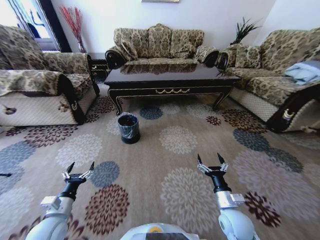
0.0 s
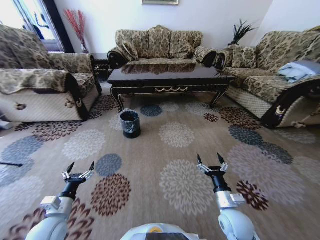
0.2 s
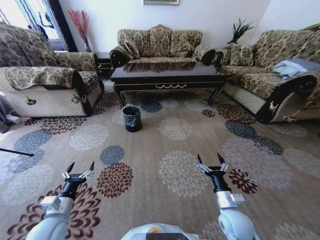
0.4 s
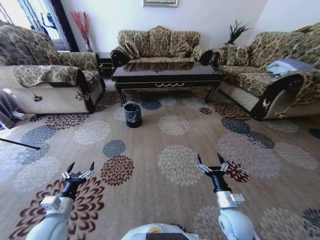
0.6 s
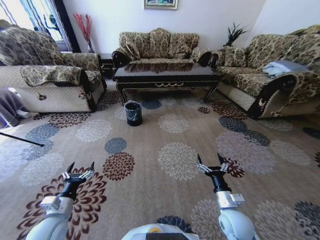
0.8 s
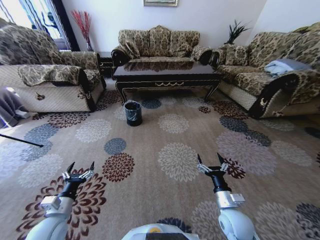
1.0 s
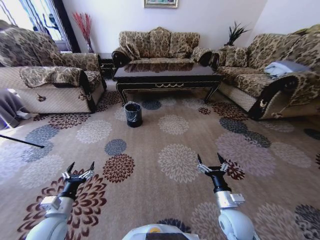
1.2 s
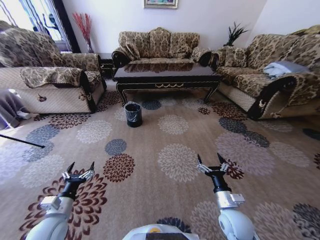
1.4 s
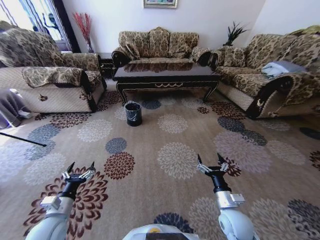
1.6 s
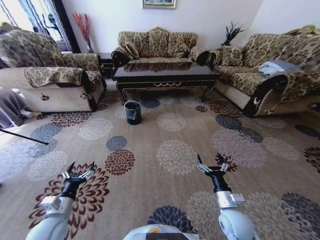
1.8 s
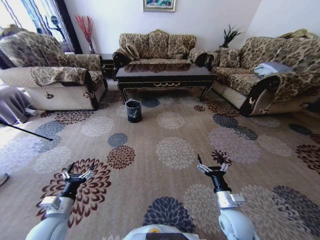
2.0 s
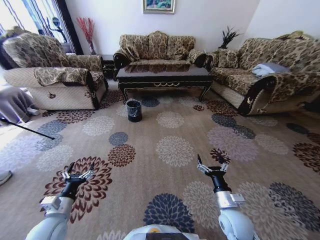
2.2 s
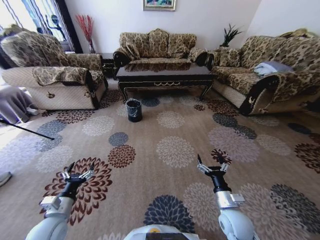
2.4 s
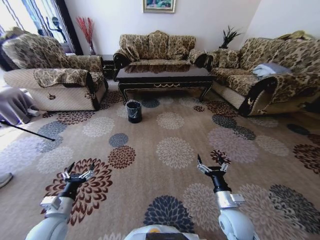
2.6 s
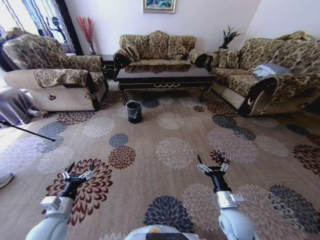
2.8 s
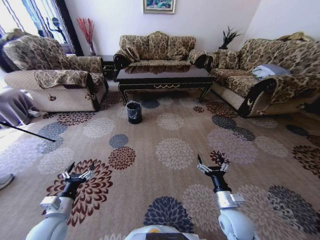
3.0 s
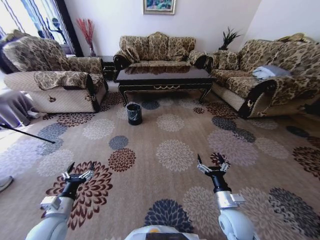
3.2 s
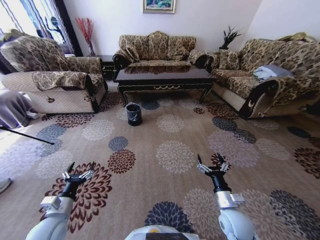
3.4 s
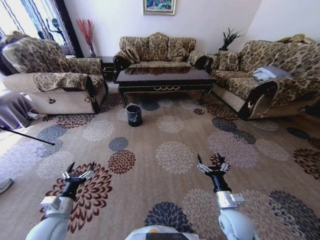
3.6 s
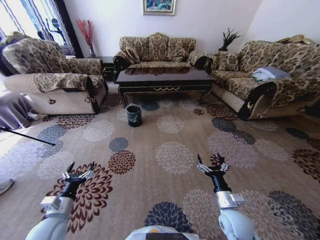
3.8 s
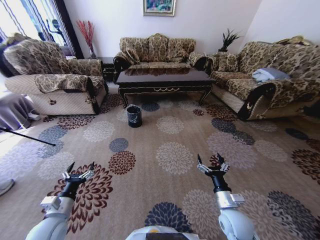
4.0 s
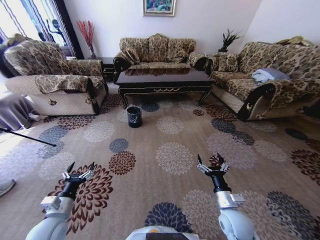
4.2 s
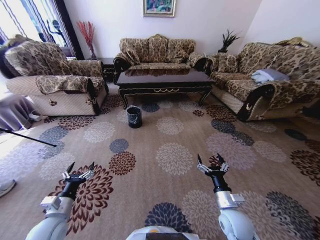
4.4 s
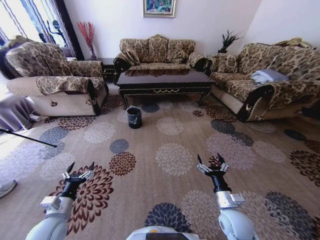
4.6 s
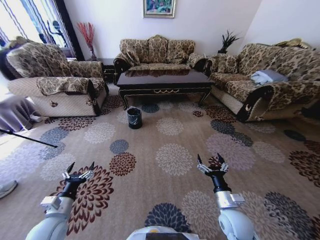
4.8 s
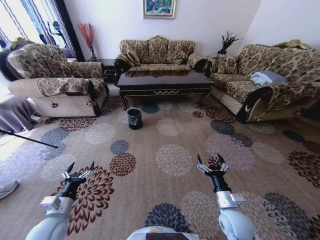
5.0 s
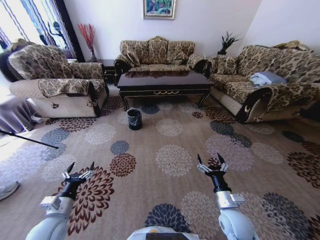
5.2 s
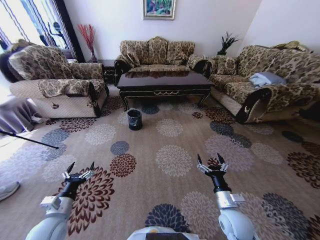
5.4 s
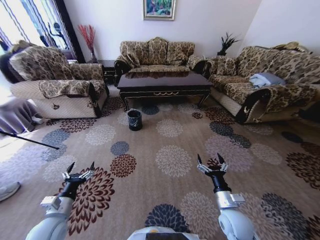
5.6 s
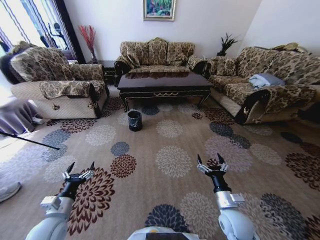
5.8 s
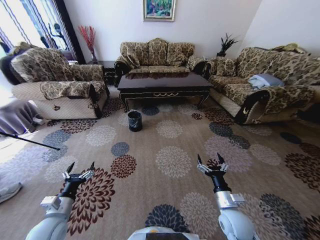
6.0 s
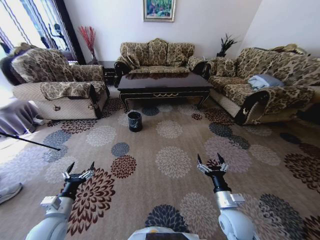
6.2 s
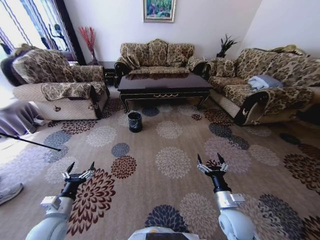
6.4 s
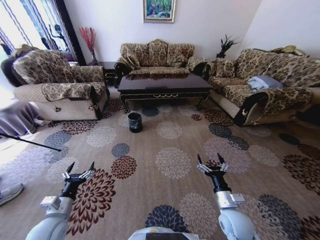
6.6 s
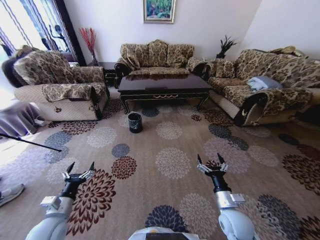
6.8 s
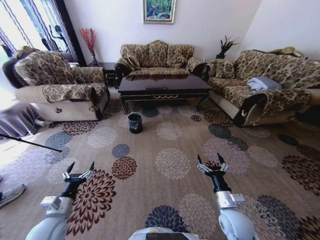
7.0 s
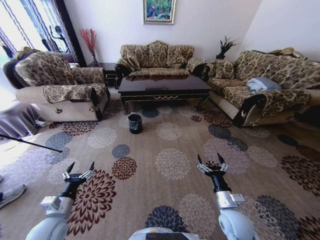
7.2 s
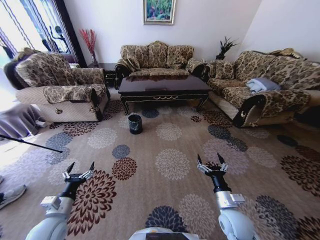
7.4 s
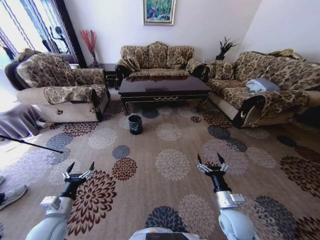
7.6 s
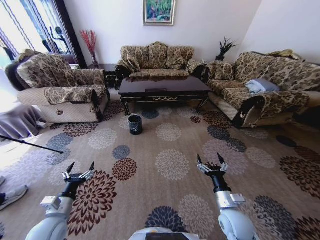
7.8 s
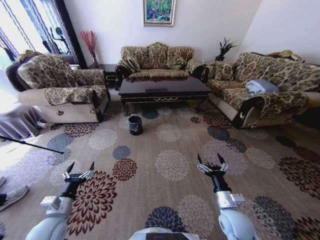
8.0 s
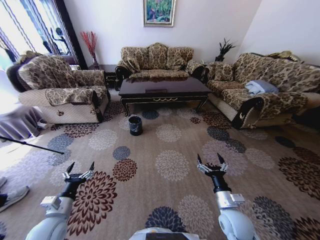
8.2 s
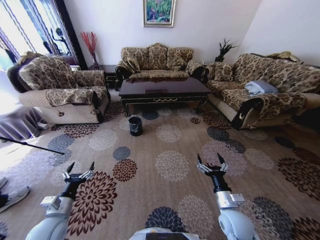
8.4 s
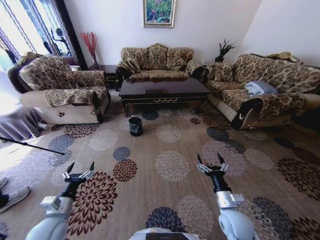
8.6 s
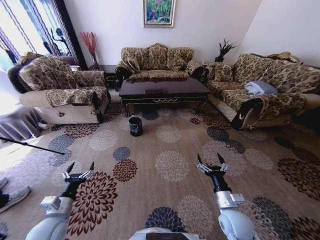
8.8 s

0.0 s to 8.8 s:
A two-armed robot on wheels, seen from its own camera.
Task of the whole recording: Move to the front of the table and pick up the trash from the floor, then place it into the trash bin.
7.4 to 8.8 s: Neither gripper changes place.

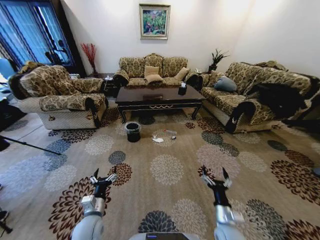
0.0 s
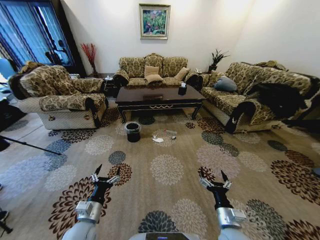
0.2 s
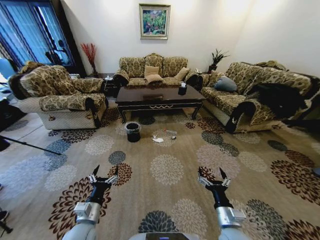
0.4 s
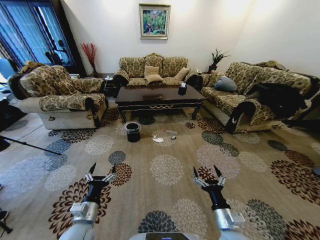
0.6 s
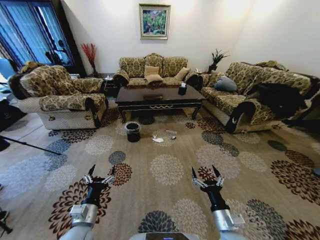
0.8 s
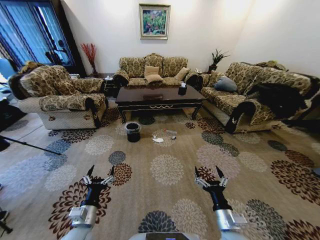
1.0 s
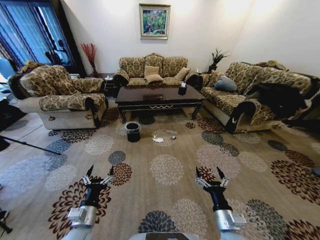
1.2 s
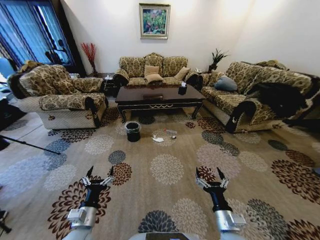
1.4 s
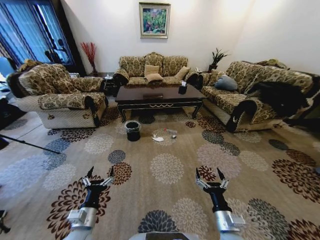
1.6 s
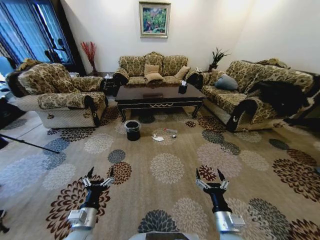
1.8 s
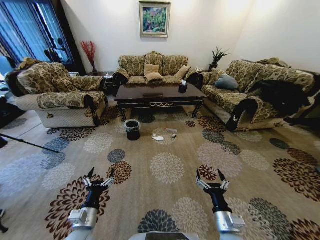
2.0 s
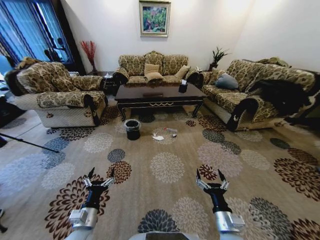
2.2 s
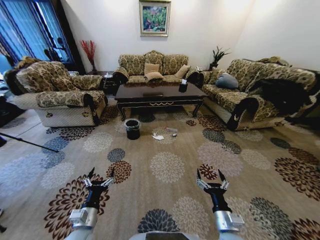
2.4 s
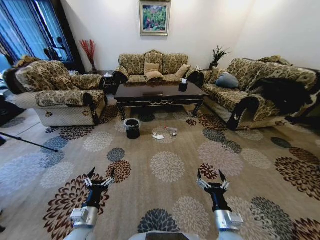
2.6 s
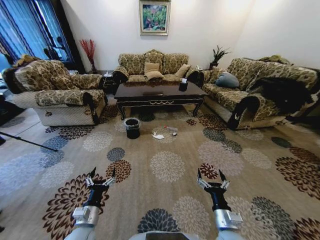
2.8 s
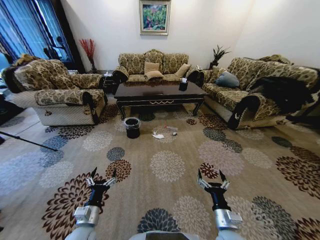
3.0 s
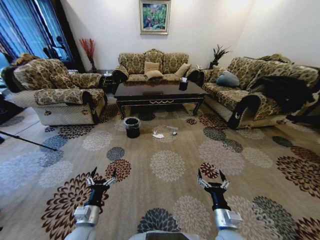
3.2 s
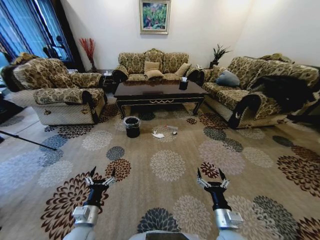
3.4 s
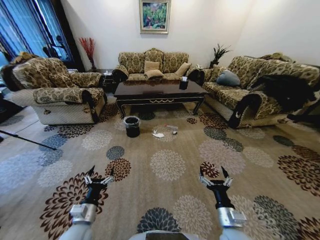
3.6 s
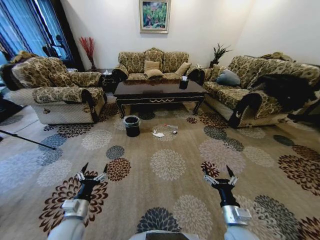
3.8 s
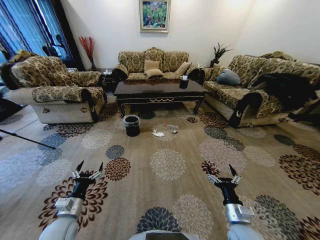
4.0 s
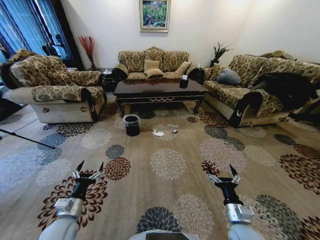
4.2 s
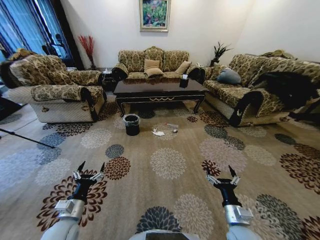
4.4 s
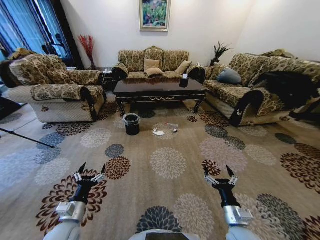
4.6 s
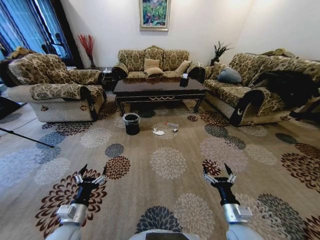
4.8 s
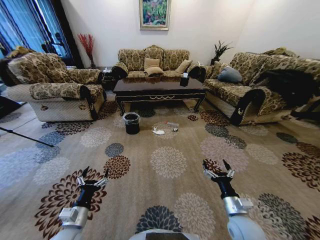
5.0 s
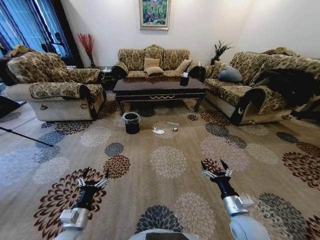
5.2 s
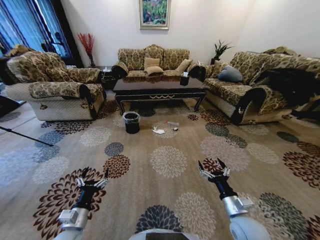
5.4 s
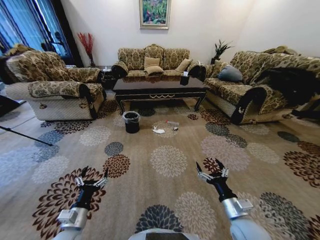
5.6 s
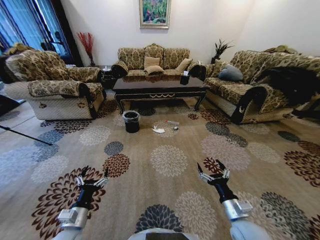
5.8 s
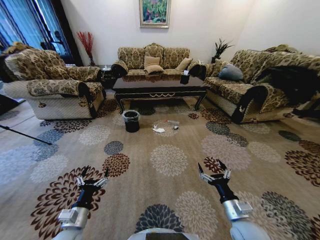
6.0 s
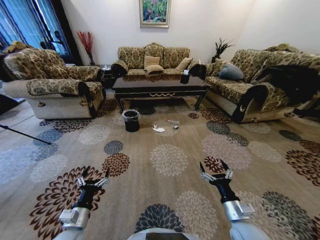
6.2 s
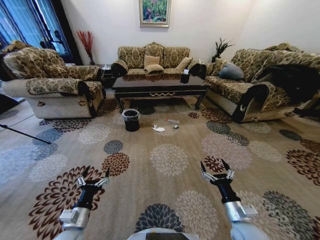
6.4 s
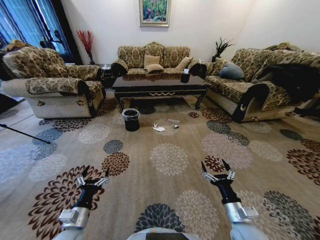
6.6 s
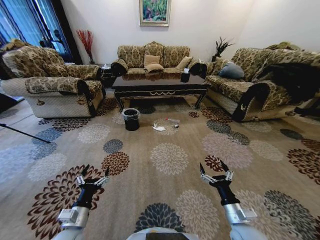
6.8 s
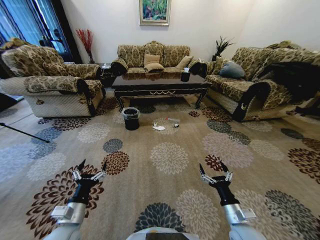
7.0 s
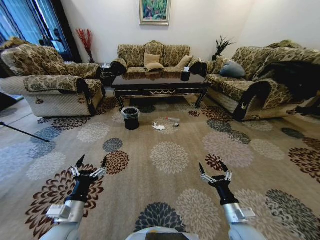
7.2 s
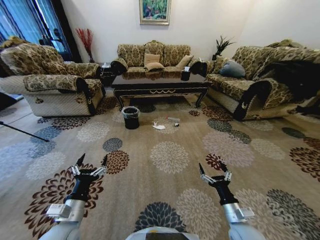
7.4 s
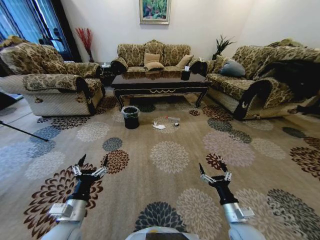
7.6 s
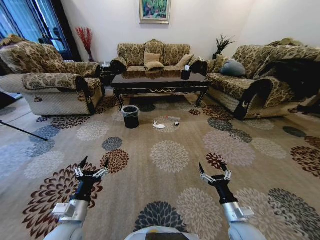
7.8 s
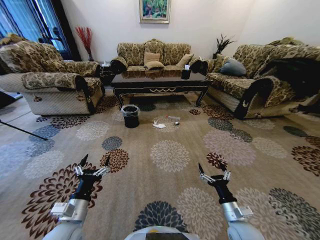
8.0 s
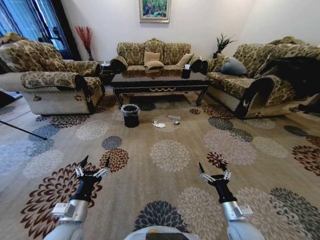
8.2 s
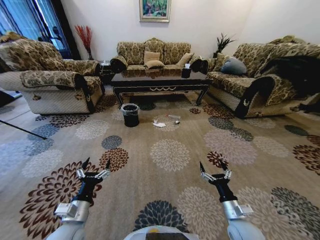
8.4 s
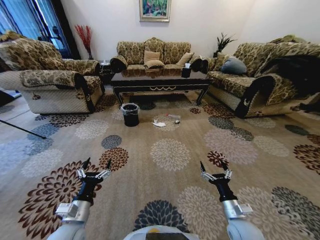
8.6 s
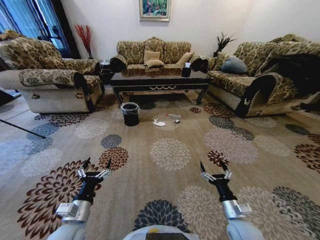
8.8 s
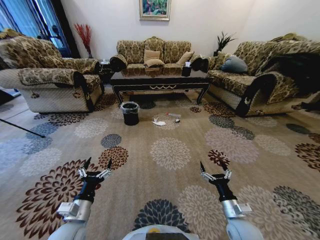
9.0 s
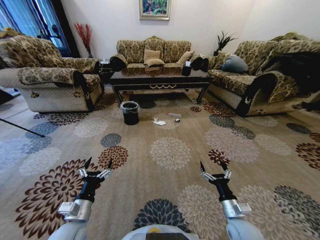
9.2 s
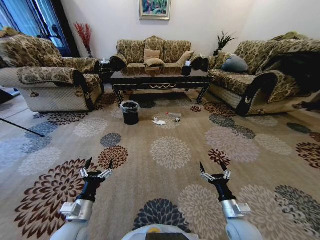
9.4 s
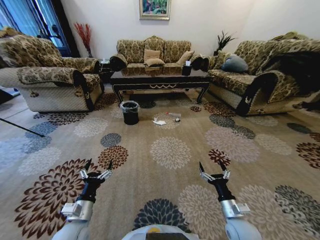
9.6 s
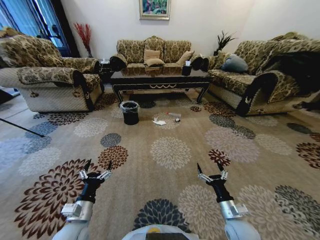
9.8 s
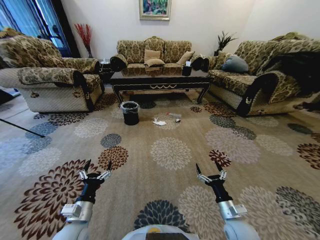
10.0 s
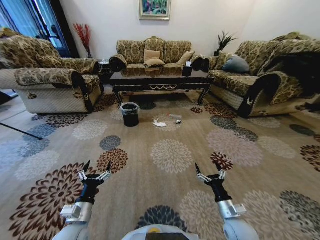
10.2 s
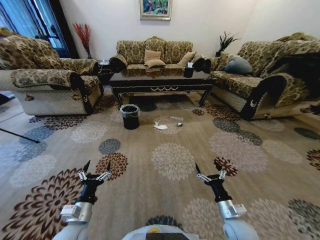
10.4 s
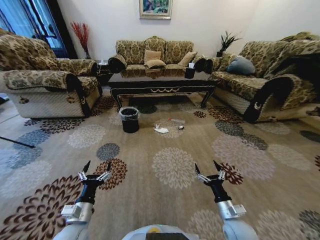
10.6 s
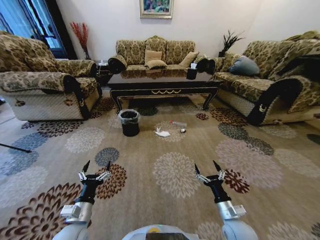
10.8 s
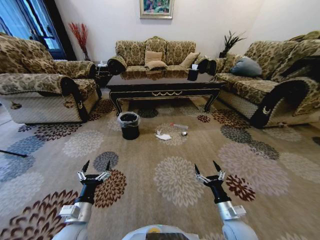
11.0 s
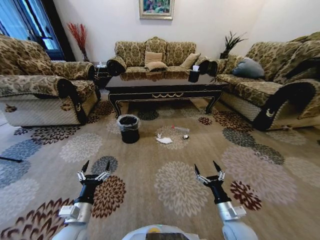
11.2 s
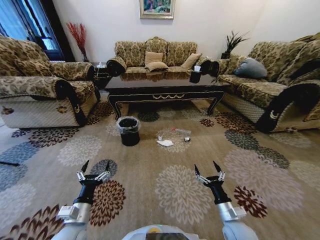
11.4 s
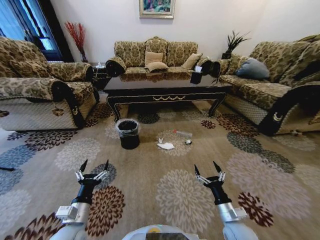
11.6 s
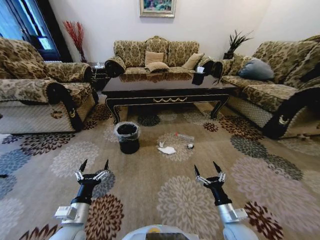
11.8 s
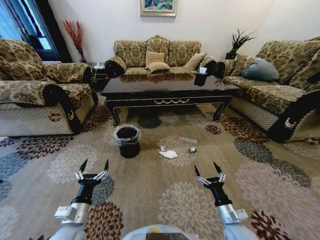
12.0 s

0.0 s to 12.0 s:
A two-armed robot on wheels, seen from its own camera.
Task of the whole recording: Move to the front of the table and pick up the trash from the floor, then place it into the trash bin.
3.0 to 4.4 s: The left gripper goes roughly 5 cm to the left.
6.0 to 7.6 s: The left gripper is displaced upward by roughly 5 cm.

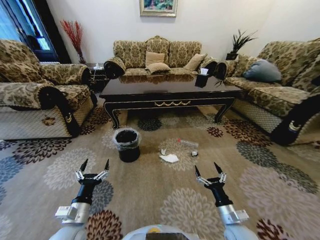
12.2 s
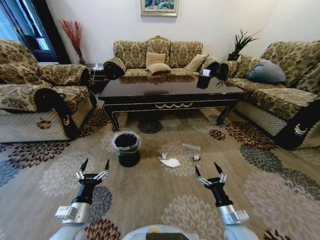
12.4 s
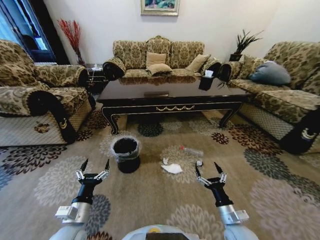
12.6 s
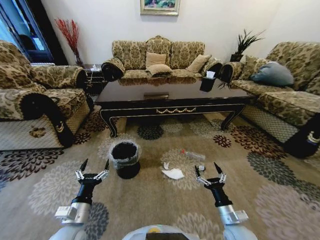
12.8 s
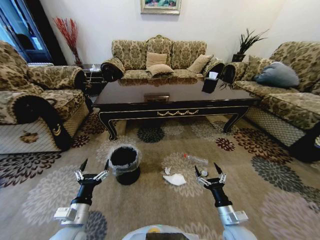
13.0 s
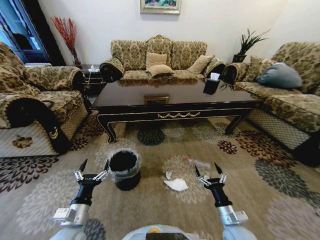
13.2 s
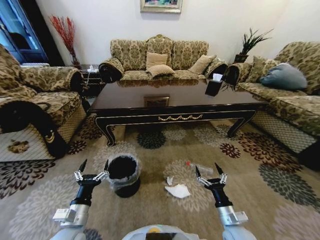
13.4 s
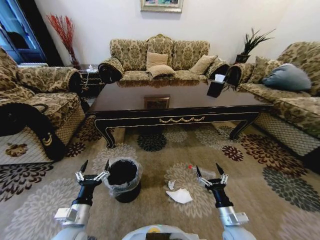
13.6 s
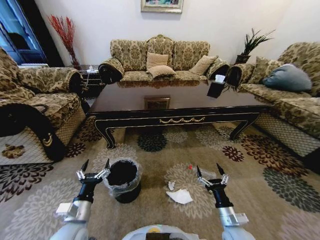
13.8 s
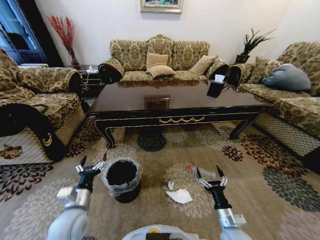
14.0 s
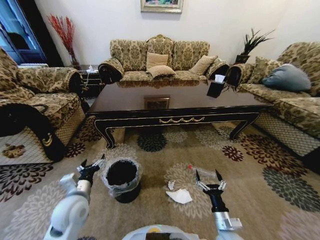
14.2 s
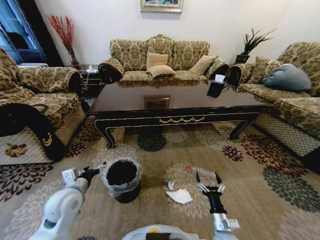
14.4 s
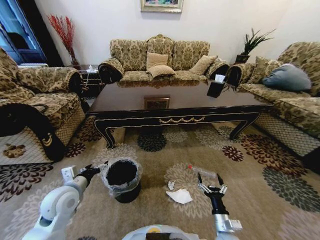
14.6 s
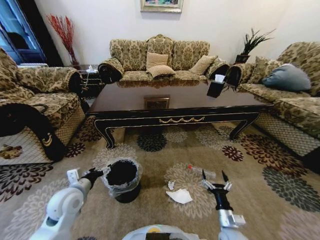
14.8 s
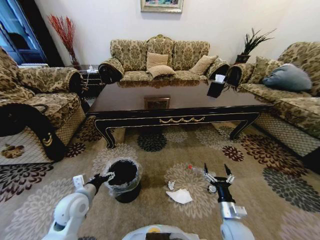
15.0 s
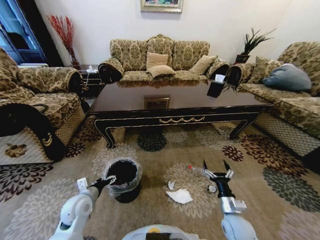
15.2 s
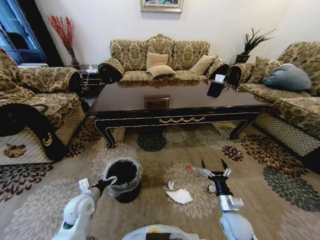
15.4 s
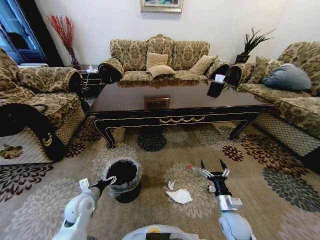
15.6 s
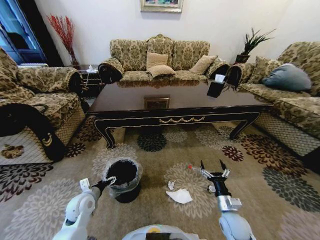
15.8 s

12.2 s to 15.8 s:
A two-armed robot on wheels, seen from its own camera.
Task of the whole recording: Move to the front of the table and pick up the trash from the floor, then place it into the trash bin.
14.0 to 15.8 s: The left gripper heads forward and downward, covering some 10 cm. Meanwhile the right gripper changes place by approximately 5 cm.
